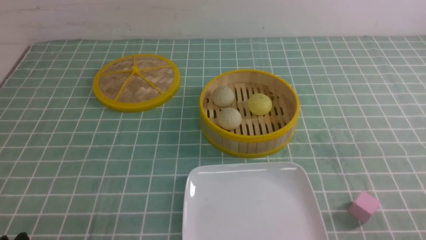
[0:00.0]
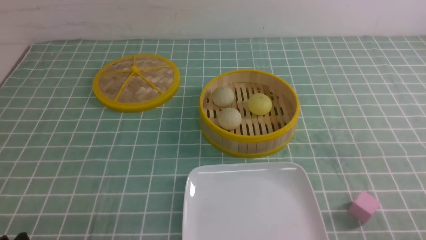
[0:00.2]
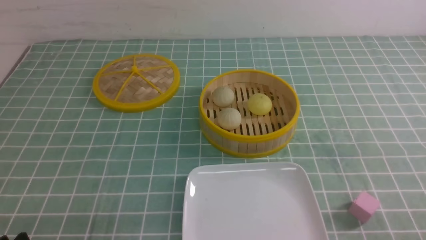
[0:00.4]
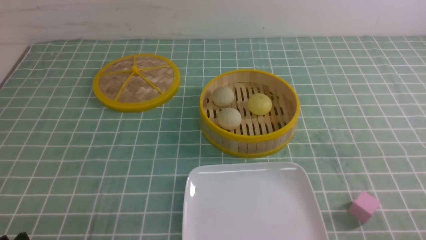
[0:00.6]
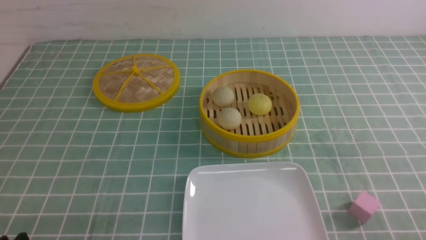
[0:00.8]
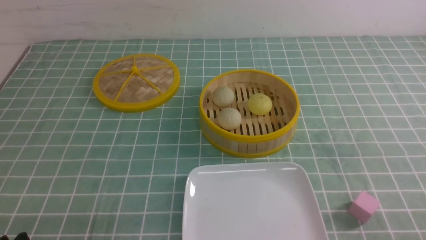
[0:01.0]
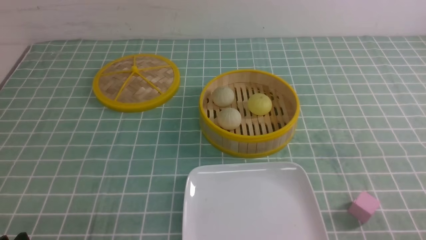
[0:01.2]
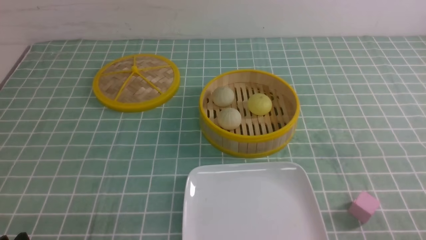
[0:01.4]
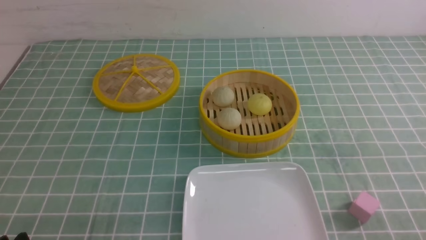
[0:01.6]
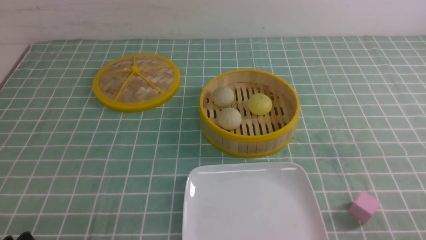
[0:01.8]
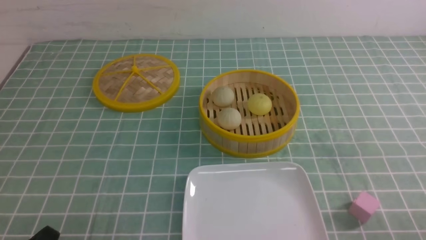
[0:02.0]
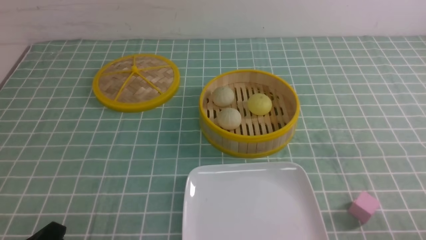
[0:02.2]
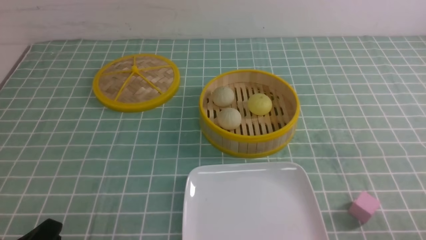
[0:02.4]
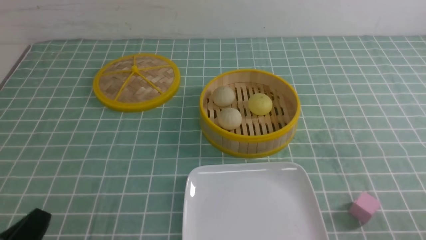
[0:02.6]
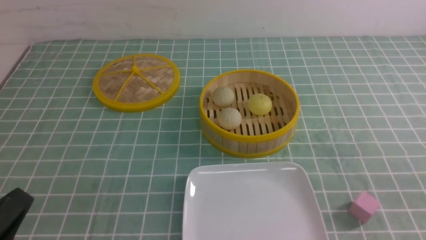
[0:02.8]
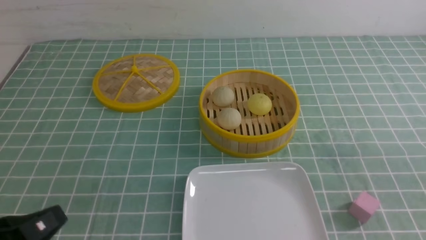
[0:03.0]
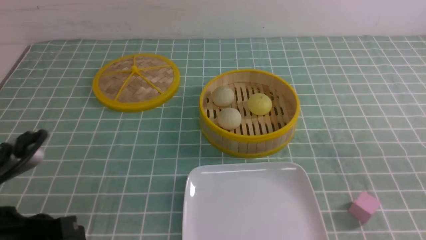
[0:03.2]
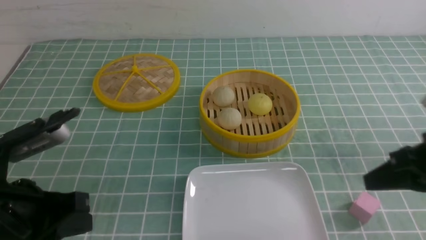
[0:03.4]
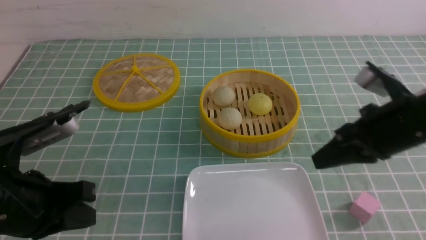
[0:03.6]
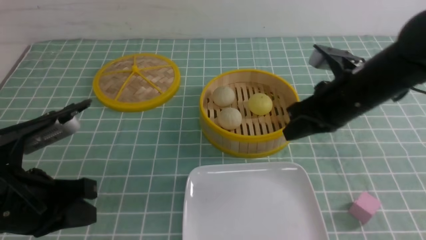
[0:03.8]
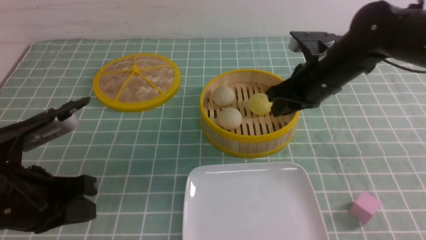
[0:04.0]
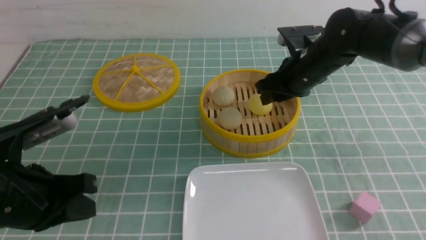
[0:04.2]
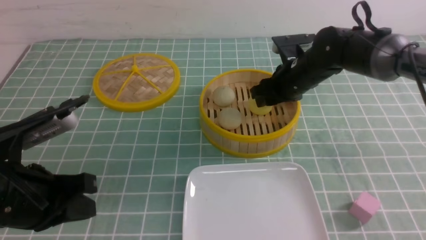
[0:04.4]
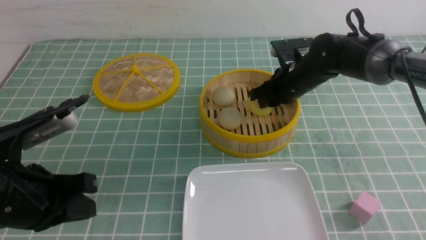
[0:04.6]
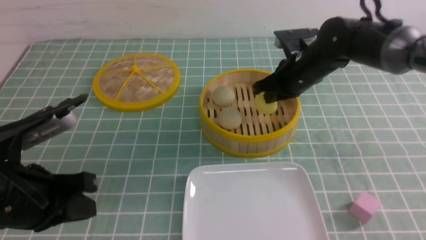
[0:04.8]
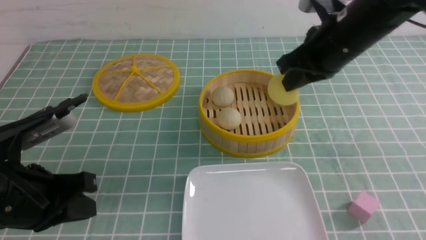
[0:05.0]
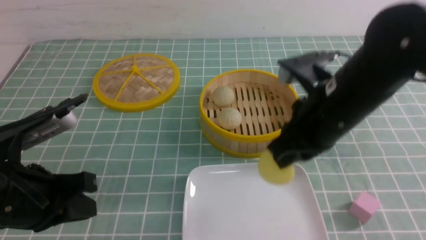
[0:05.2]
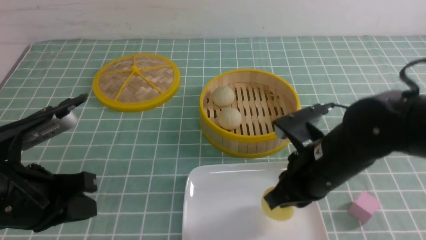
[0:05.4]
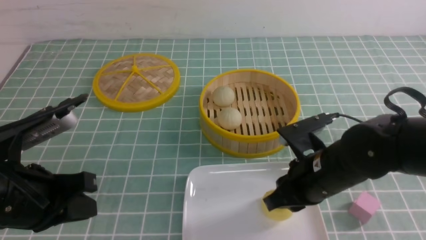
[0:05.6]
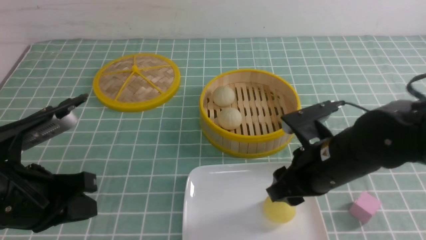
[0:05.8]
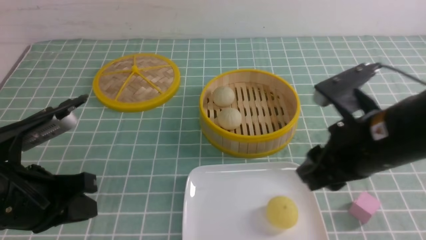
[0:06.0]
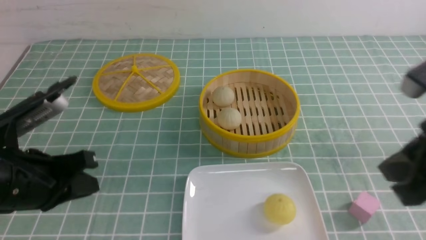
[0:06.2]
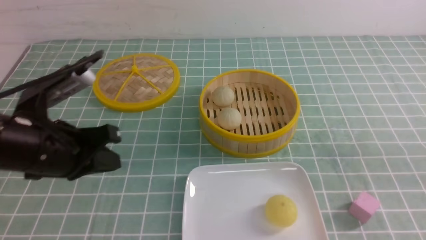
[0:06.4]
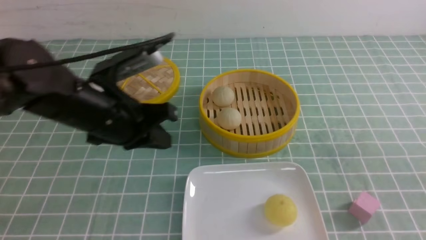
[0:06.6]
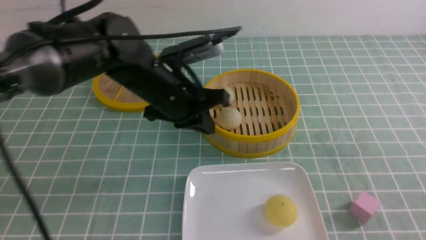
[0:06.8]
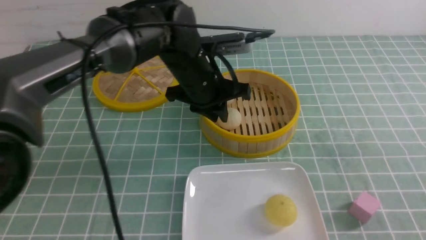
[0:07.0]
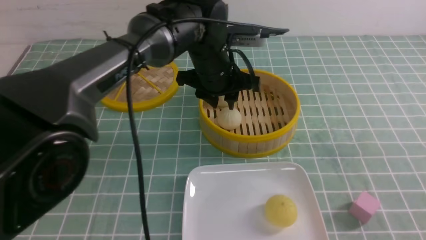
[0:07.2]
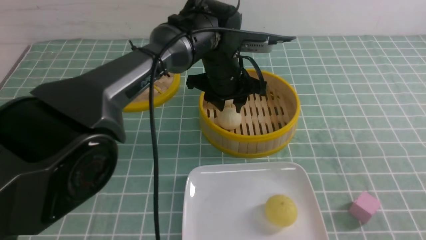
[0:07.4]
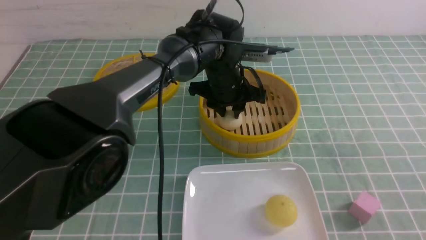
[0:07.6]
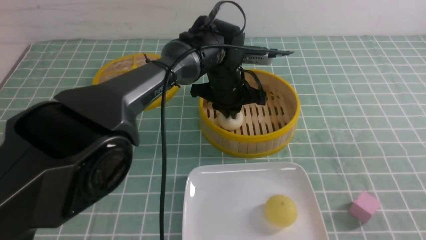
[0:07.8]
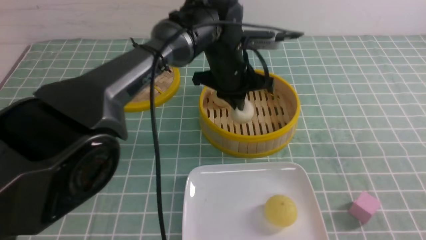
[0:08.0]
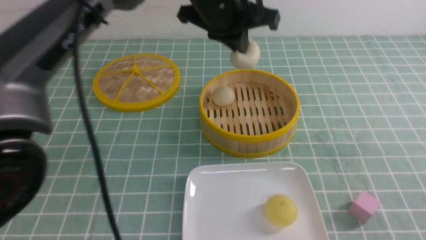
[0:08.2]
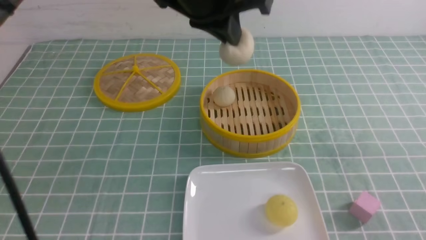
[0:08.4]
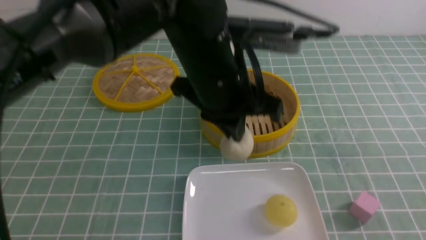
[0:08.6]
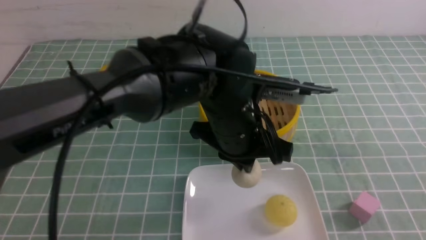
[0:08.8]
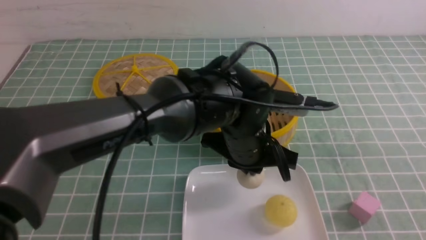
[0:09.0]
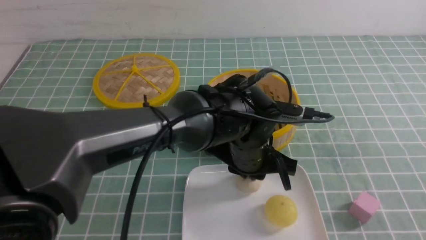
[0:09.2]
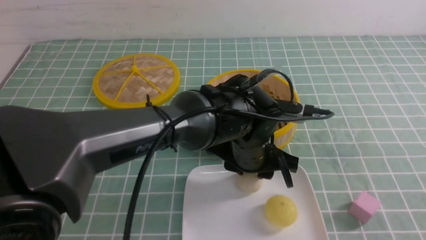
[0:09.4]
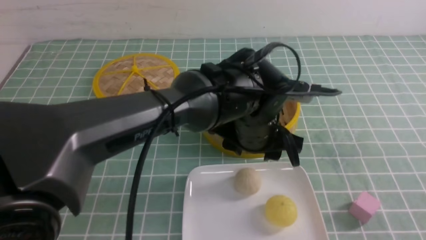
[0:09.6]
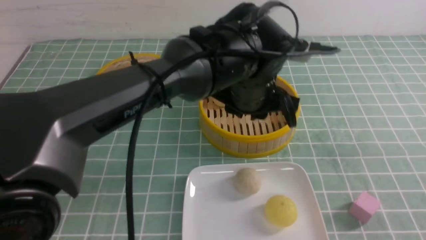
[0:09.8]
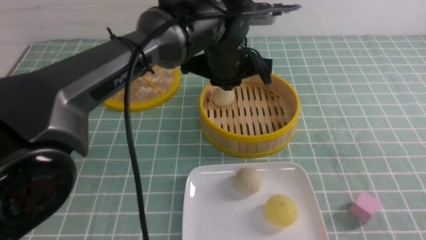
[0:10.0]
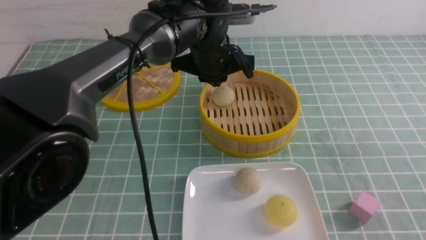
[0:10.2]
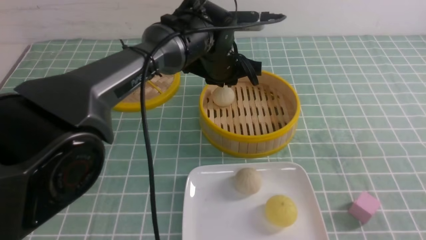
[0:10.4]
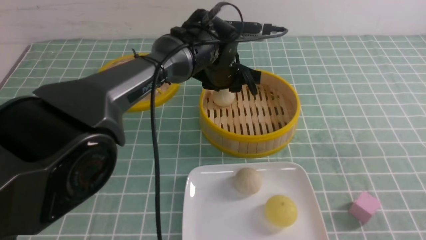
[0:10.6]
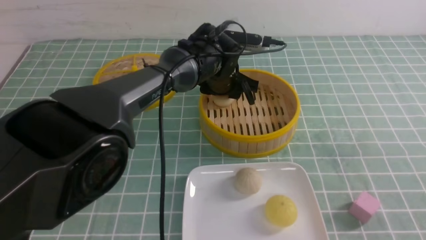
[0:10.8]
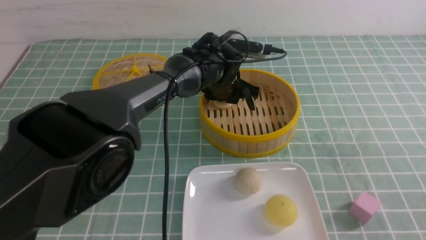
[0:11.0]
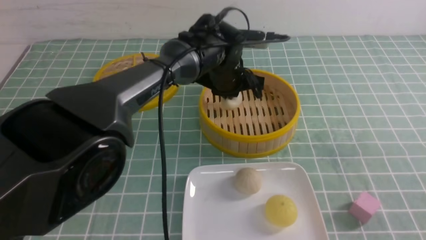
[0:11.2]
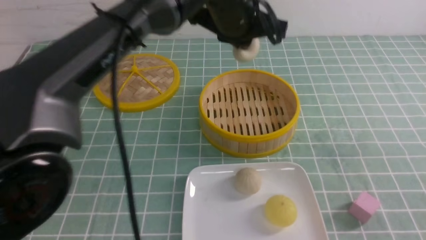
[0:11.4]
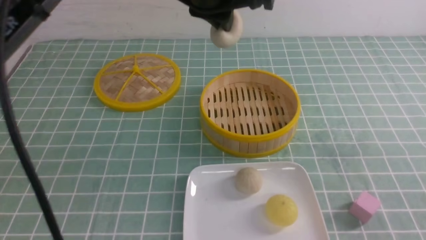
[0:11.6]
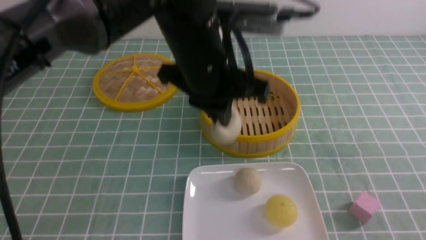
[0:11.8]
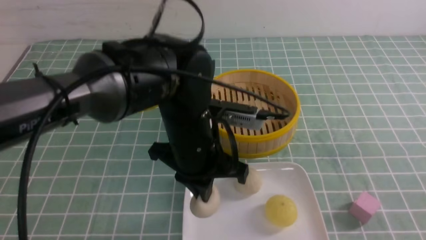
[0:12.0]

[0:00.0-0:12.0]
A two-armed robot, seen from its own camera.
Step, 0:00.0 to 0:04.6: use the right arm to grab the steamed stuffed bun that is closest to it.
Step, 0:04.8 to 0:05.8: use the right arm to put the steamed stuffed bun into the plate.
Step, 0:06.0 to 0:08.0: use the left arm to grab the steamed stuffed bun that is closest to it.
Step, 0:08.2 to 0:09.6: use the left arm to put the steamed stuffed bun into the plate.
Step, 0:09.8 to 0:11.0: use the left arm to grab the steamed stuffed bun that is closest to it.
0:00.0 to 0:01.6: The two grippers keep their place.
0:01.6 to 0:03.0: The left gripper heads upward, covering about 10 cm, and closes.
0:03.0 to 0:04.4: The left gripper moves forward, some 10 cm. Meanwhile the right gripper goes roughly 40 cm forward and to the left, and opens its fingers.
0:04.4 to 0:06.0: The right gripper shifts roughly 25 cm backward, and closes, then reopens.
0:06.0 to 0:07.6: The left gripper travels to the right and forward by about 35 cm; the right gripper shifts roughly 20 cm backward and to the right, and closes up.
0:07.6 to 0:09.0: The left gripper shifts roughly 15 cm backward, and travels upward and back again, some 15 cm each way.
0:09.0 to 0:10.4: The left gripper moves forward, approximately 15 cm.
0:10.4 to 0:12.0: The left gripper swings up and down, about 20 cm each way, with 2 reversals.

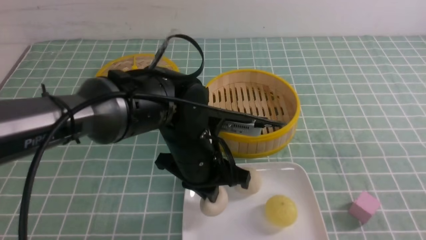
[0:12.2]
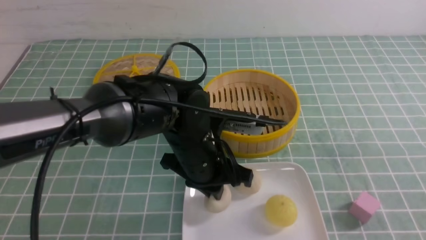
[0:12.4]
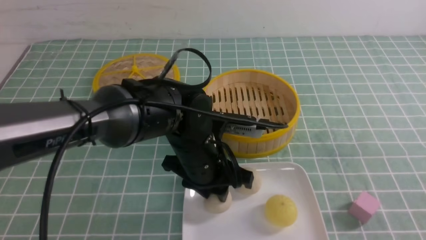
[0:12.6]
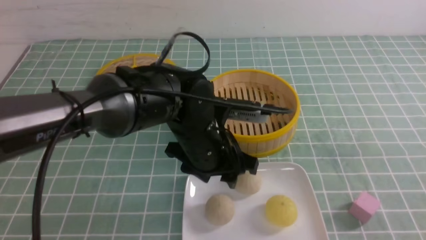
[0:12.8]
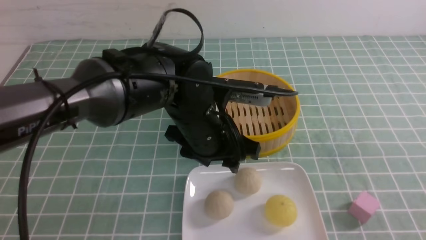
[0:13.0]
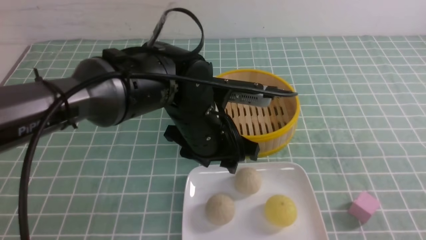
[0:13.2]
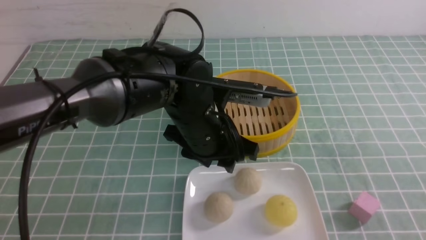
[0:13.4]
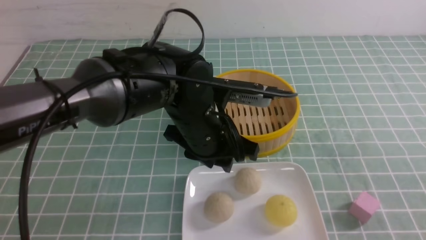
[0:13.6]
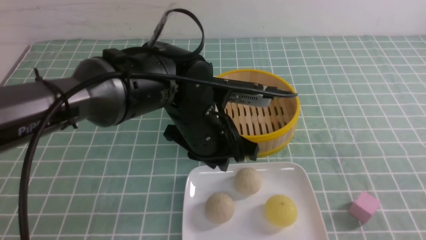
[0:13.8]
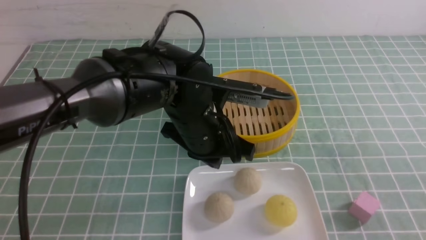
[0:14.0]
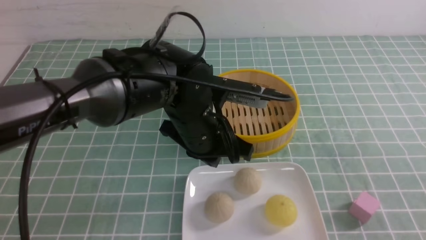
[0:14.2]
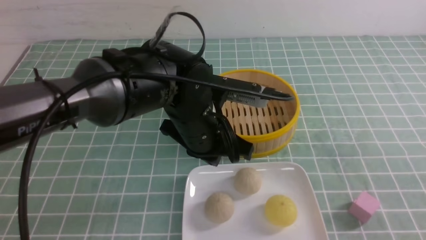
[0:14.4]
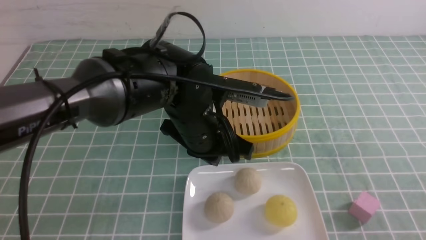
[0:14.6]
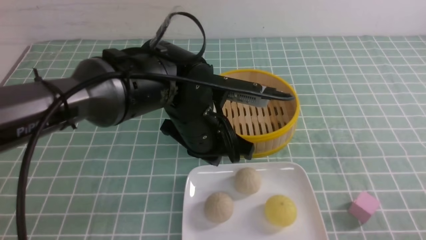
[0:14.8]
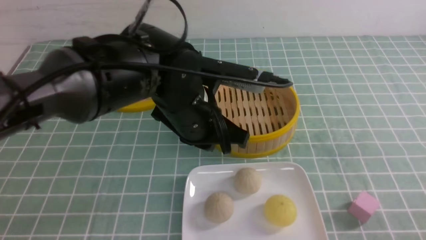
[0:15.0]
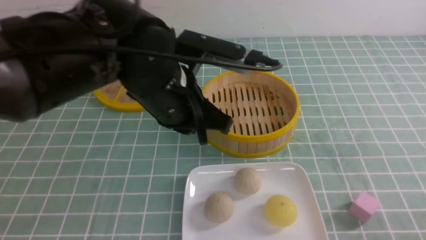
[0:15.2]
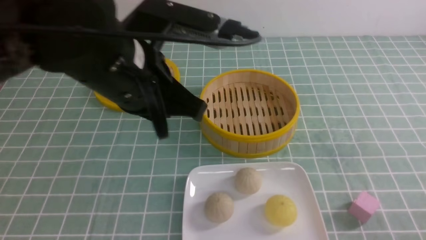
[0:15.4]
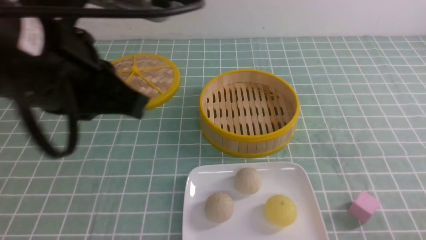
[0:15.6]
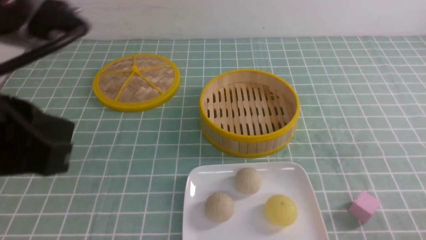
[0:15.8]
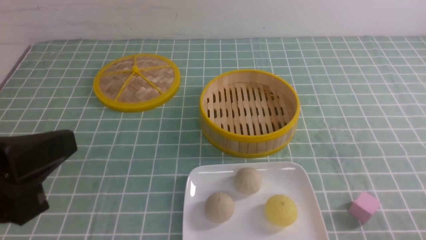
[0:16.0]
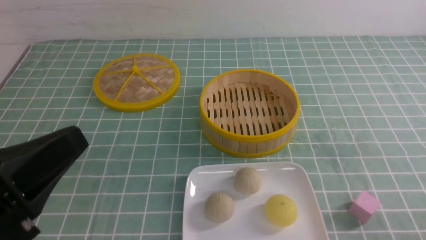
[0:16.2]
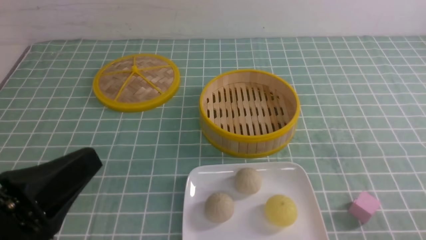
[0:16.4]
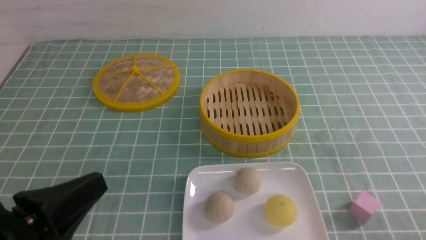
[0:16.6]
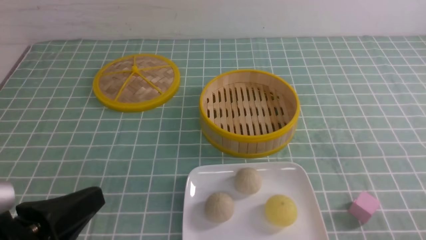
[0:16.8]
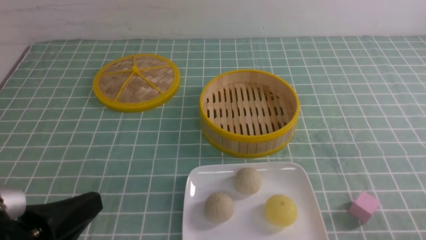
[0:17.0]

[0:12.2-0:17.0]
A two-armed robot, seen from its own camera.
0:12.2 to 0:13.8: The left gripper opens, then closes again, while the right gripper closes its fingers.
0:13.8 to 0:15.4: The left gripper moves upward, to the left and backward, some 15 cm, while the right gripper heads downward, covering about 10 cm.
0:15.4 to 0:17.0: The left gripper goes about 20 cm backward, to the left and downward.
